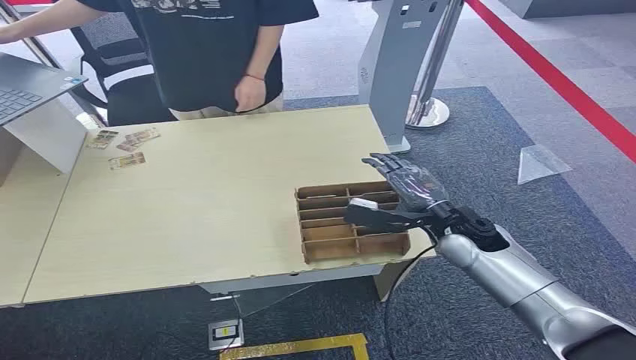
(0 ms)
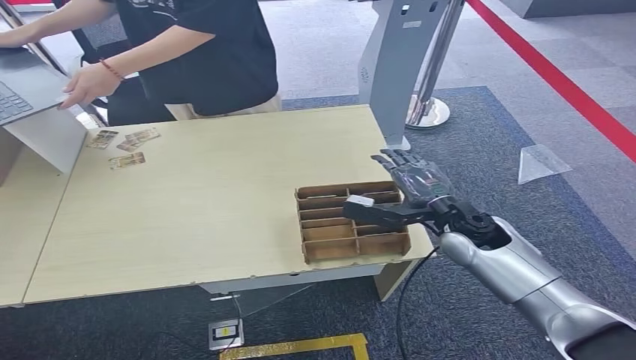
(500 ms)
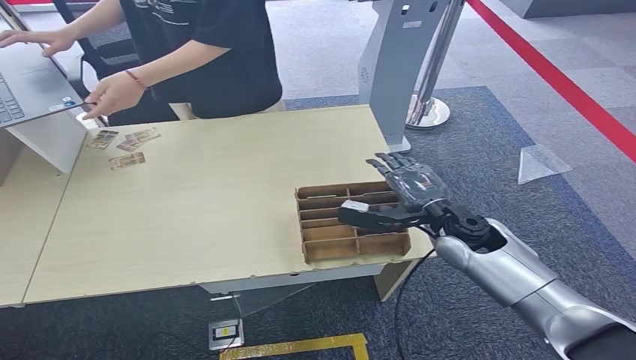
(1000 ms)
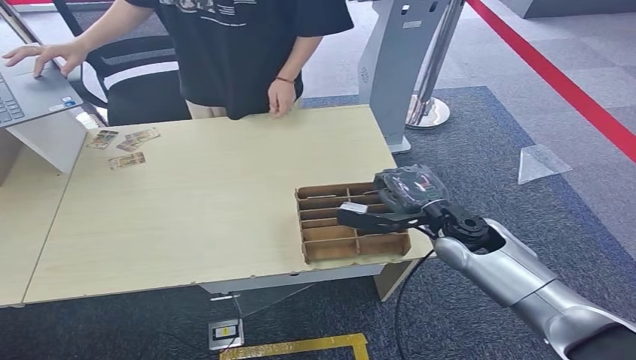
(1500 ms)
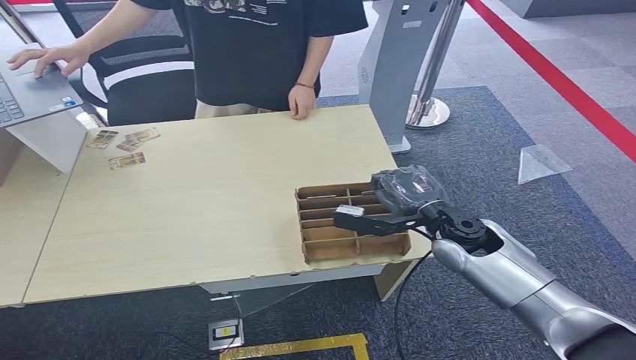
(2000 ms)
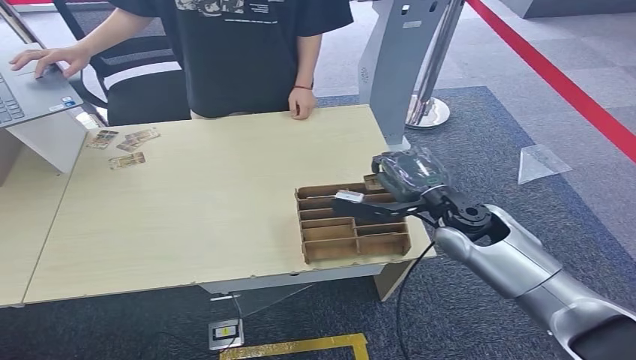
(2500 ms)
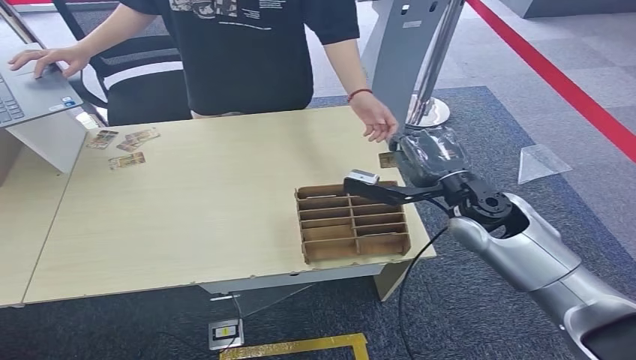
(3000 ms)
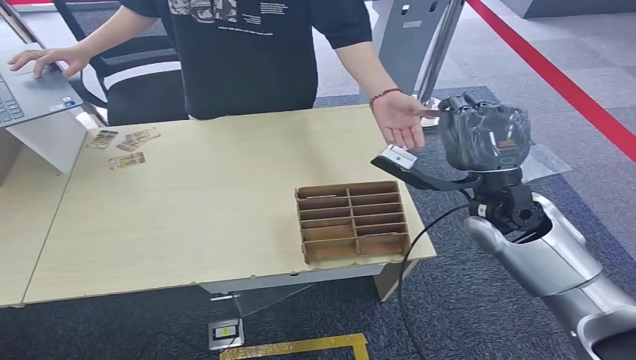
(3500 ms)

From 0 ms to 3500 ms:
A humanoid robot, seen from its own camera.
Step, from 0 ms to 3000 ms: Pick up the key card from the card box.
From 2000 ms to 3500 ms: The right hand heads upward, covering about 10 cm.
